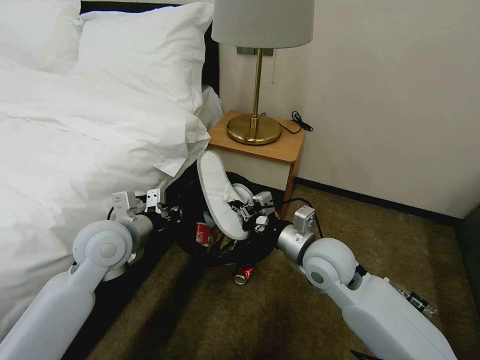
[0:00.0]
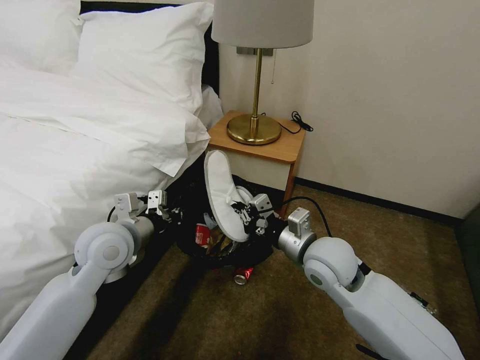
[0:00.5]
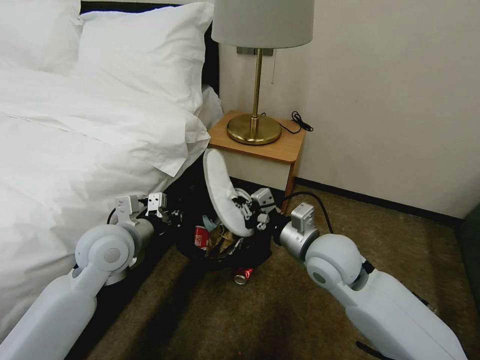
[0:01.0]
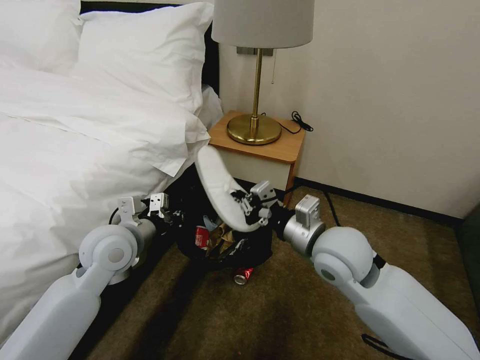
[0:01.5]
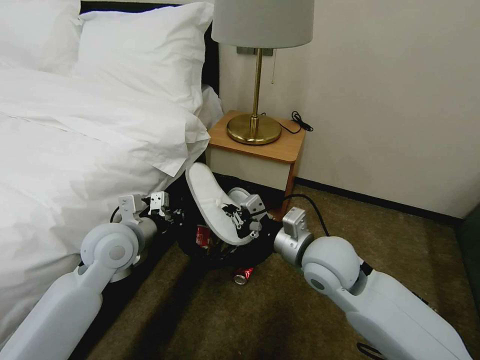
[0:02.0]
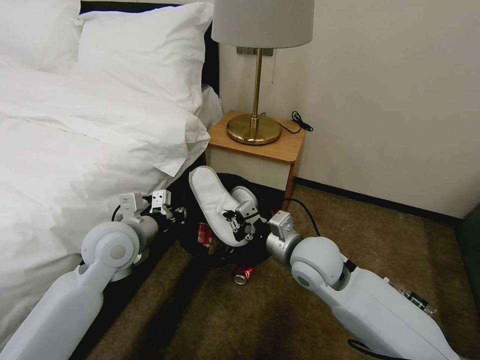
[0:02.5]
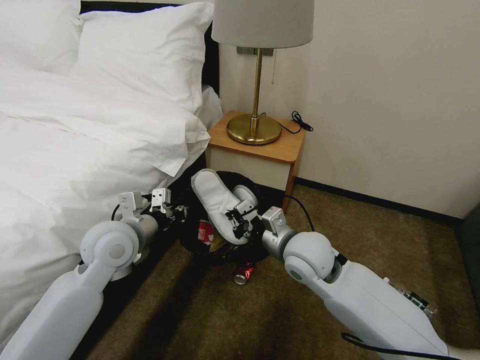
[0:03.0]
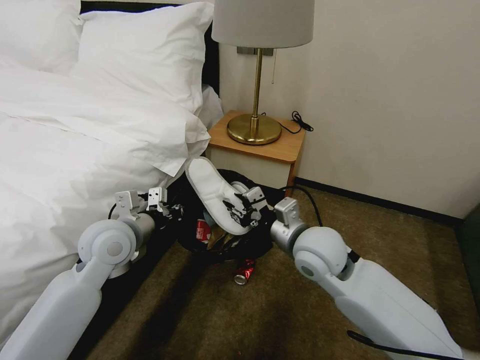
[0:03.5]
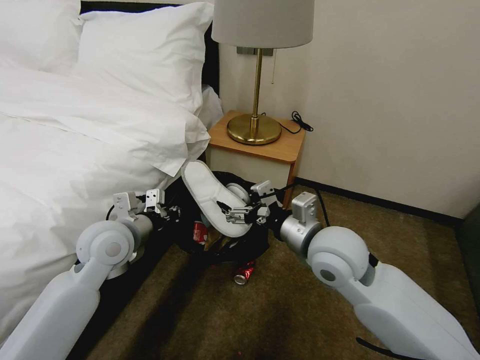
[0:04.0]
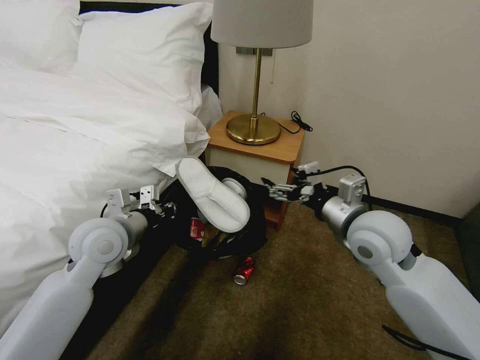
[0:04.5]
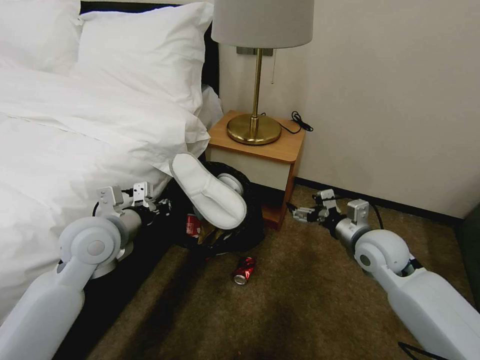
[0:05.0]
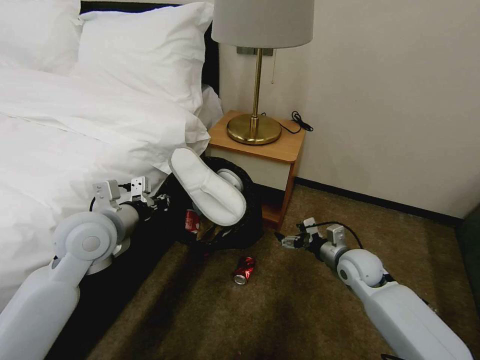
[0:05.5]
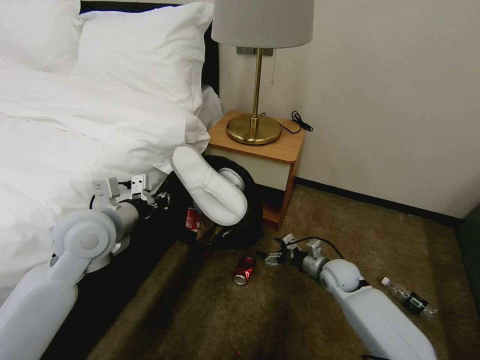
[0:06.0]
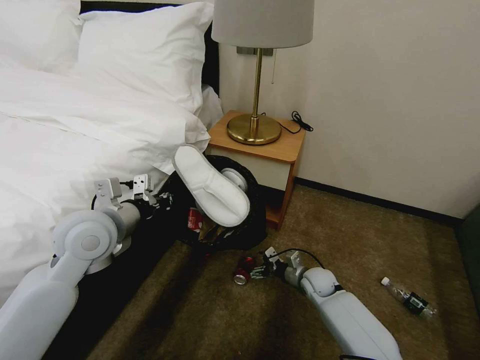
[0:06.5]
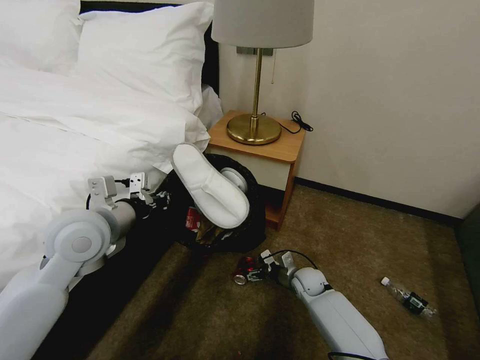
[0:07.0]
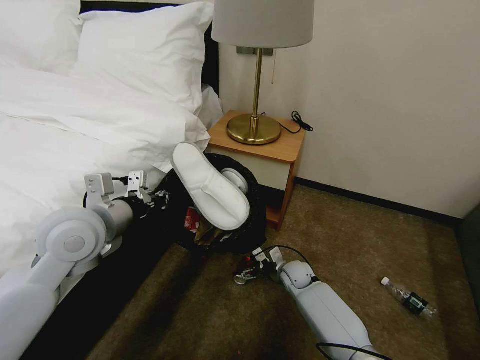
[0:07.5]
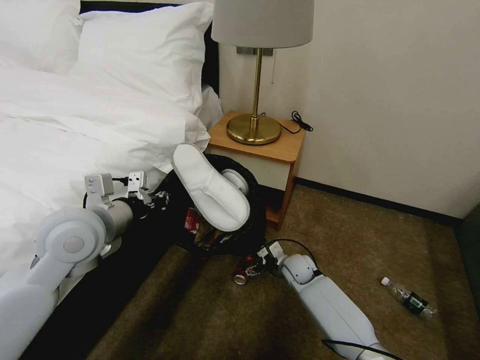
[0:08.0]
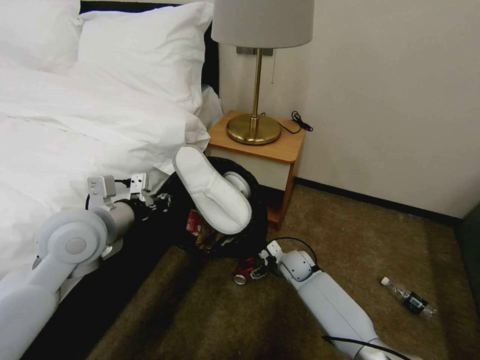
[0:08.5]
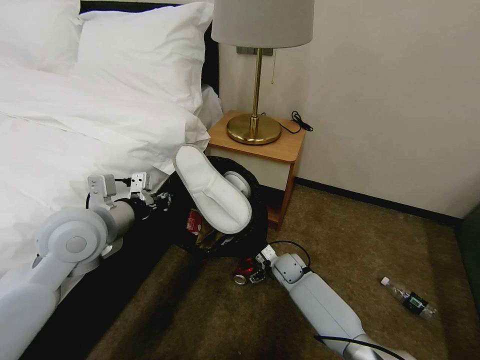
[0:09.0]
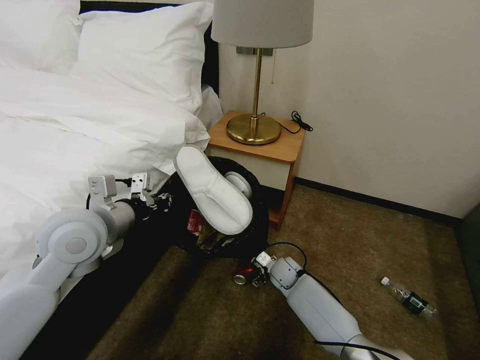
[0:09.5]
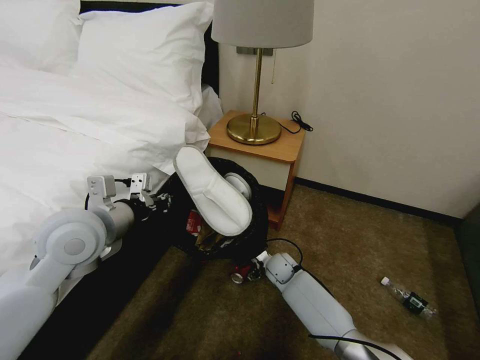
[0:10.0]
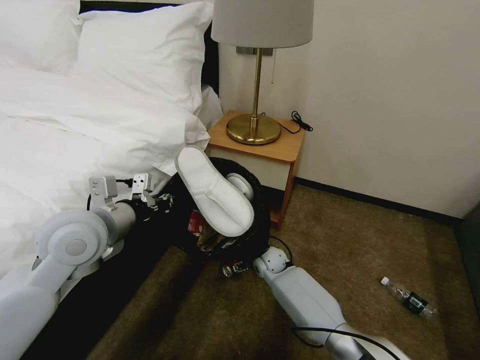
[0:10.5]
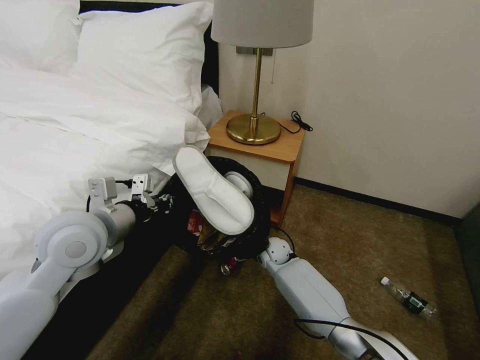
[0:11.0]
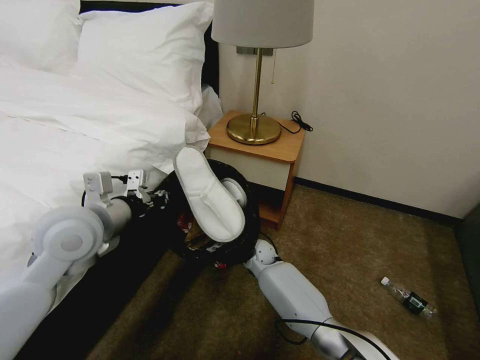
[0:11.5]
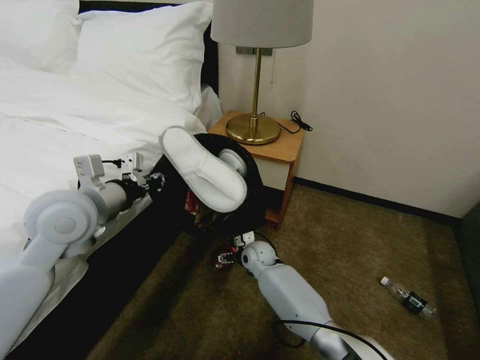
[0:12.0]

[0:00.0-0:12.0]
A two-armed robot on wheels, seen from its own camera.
Task of the whole recording: Pick up the trash bin, then pick up the garbage on the floor and place it into the trash bin.
0:00.0 to 0:02.0: The grippers move only a little.
0:02.0 to 0:04.0: The right gripper opens up.
0:04.0 to 0:06.0: The right gripper moves downward and to the right, some 30 cm.
0:06.0 to 0:08.0: The right gripper moves to the left, approximately 10 cm.
0:08.0 to 0:10.0: The right gripper moves approximately 5 cm.
0:10.0 to 0:12.0: The left gripper closes, while the right gripper shifts roughly 5 cm to the left.

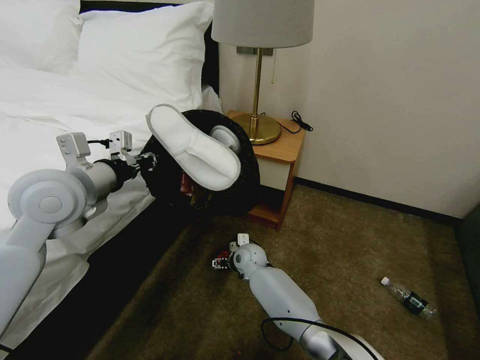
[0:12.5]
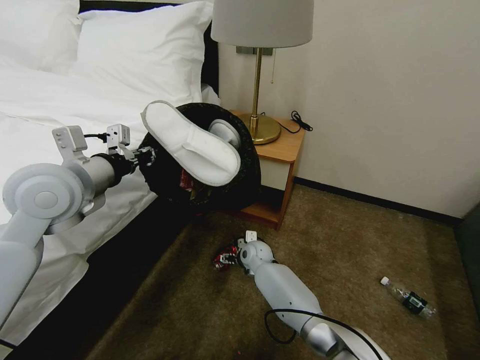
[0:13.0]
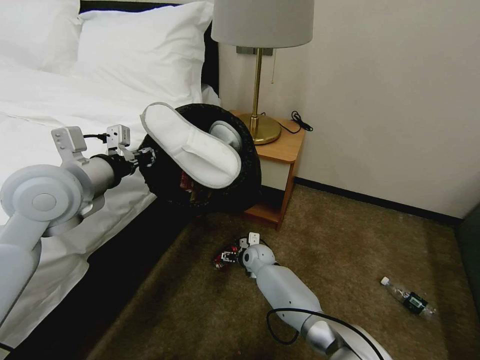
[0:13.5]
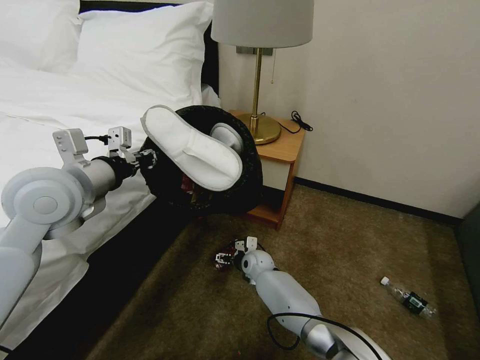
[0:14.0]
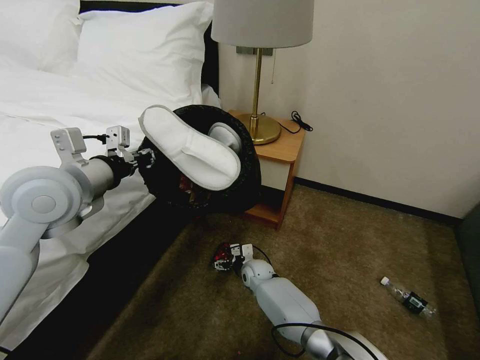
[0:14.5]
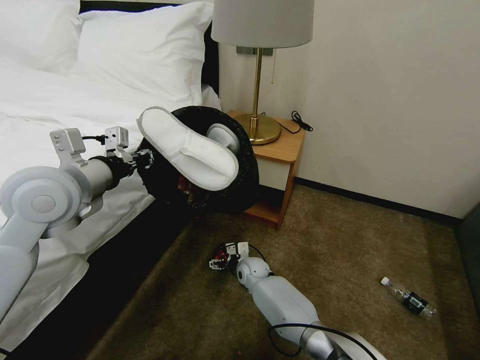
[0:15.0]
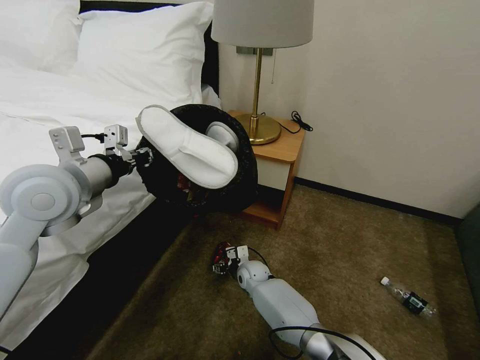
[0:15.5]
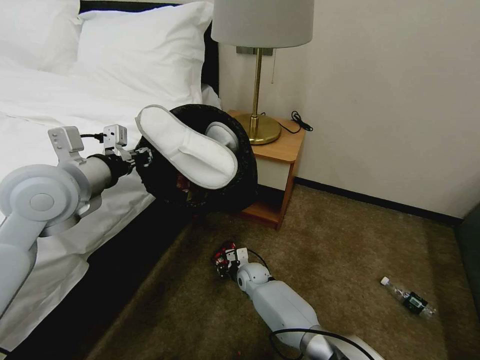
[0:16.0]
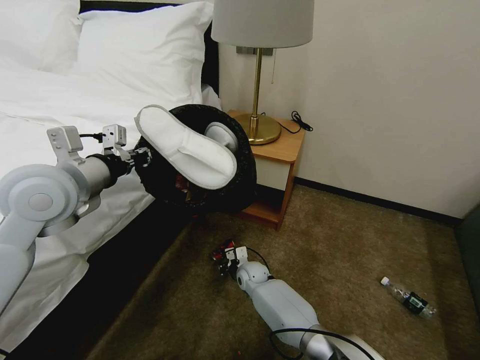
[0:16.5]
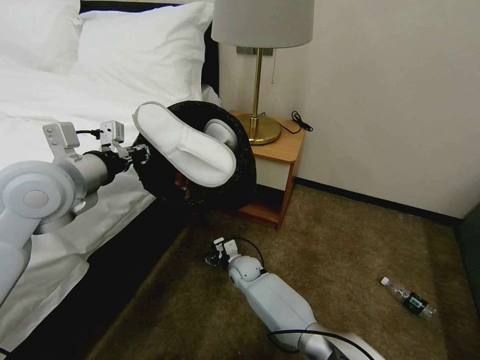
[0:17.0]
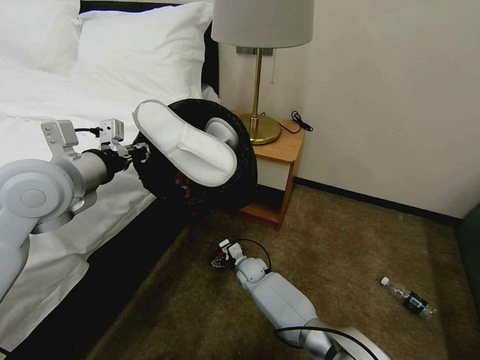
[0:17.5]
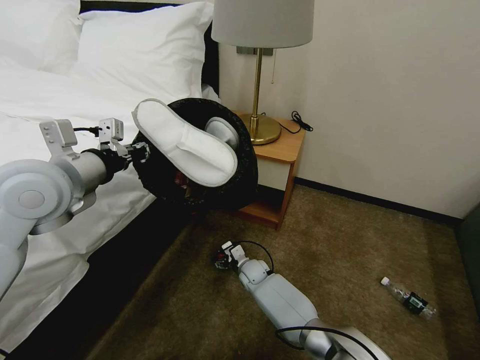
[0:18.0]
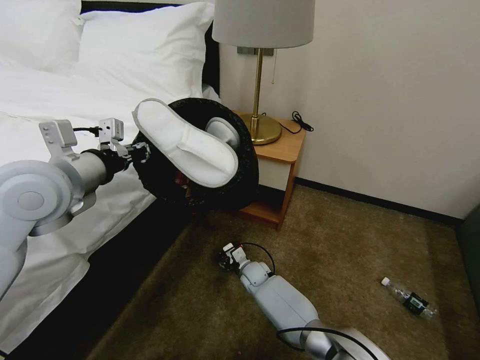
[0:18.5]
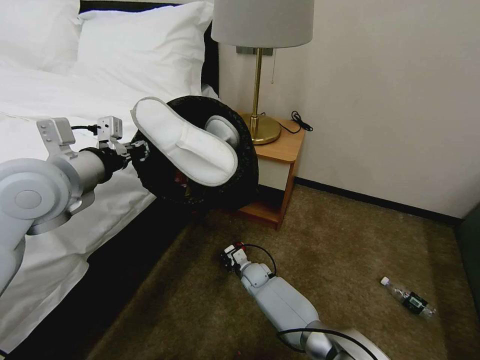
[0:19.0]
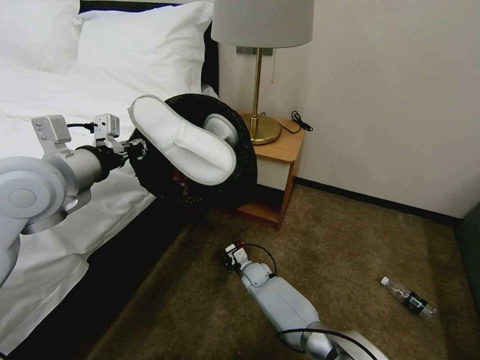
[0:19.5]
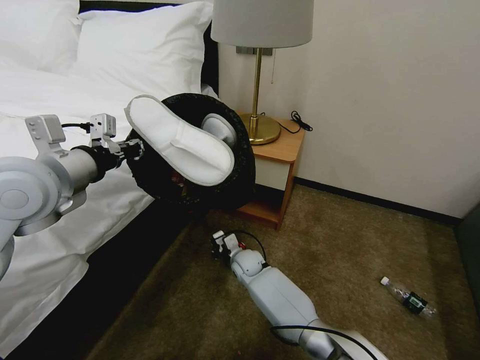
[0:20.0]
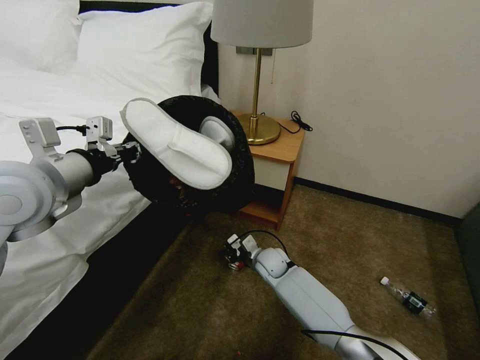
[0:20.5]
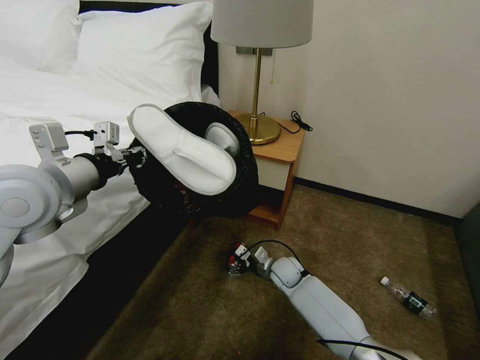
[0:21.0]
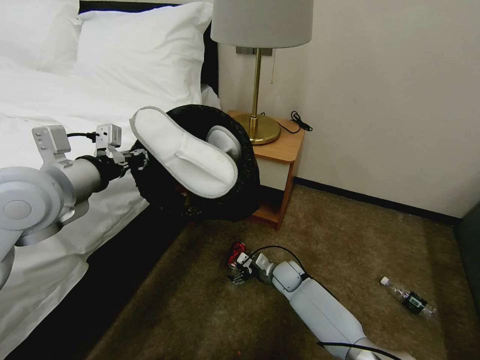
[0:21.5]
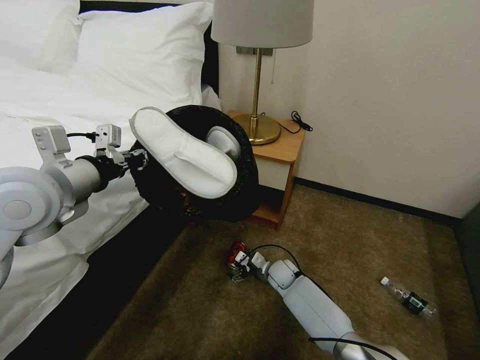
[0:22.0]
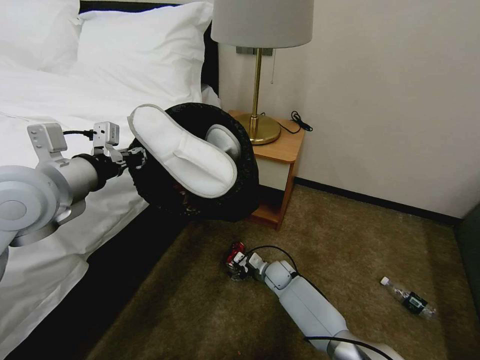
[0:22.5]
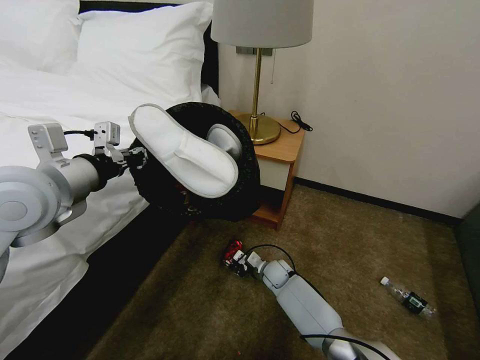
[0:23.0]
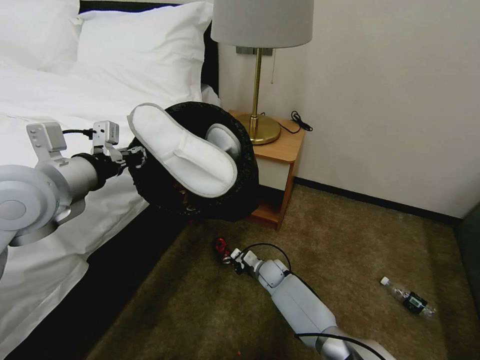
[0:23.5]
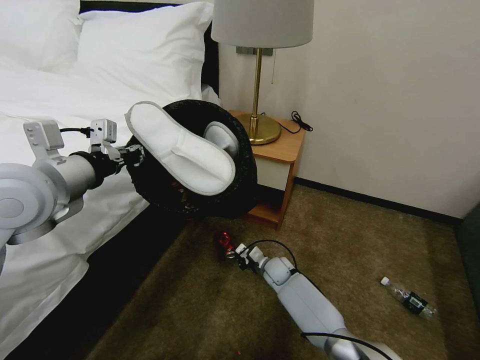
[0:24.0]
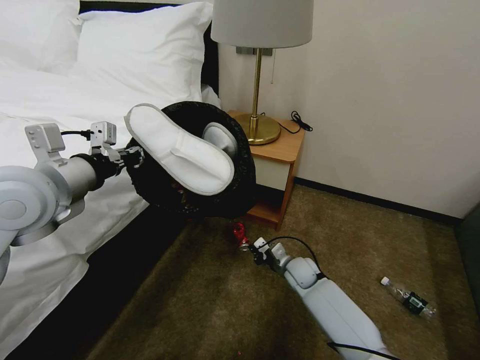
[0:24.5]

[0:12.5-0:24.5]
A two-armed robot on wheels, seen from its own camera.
Task of the whole recording: Pick up the trash bin, then pick up the garbage on the floor and place it into the trash bin.
0:12.5 to 0:14.5: The right gripper heads downward, covering approximately 5 cm.
0:14.5 to 0:16.5: The right gripper closes up.
0:16.5 to 0:18.5: The right gripper opens its fingers.
0:18.5 to 0:20.5: The right gripper travels upward by roughly 10 cm.
0:20.5 to 0:22.5: The right gripper travels downward by approximately 5 cm, and opens up.
0:22.5 to 0:24.5: The right gripper shifts approximately 5 cm to the right and upward, and closes up.

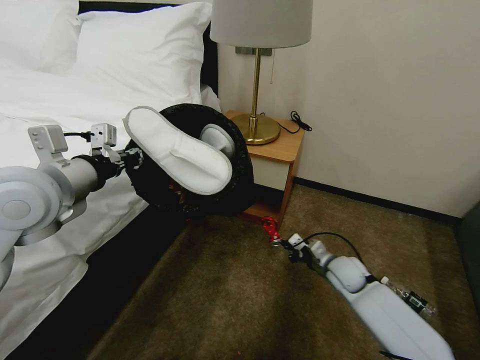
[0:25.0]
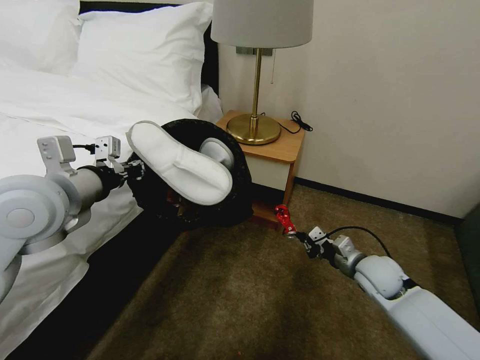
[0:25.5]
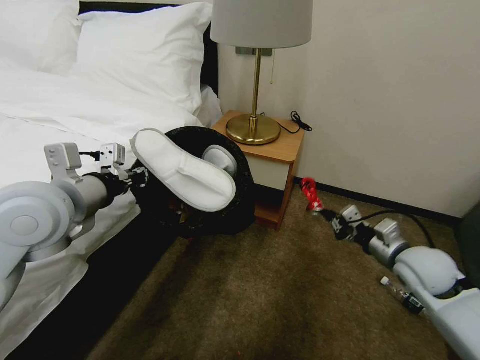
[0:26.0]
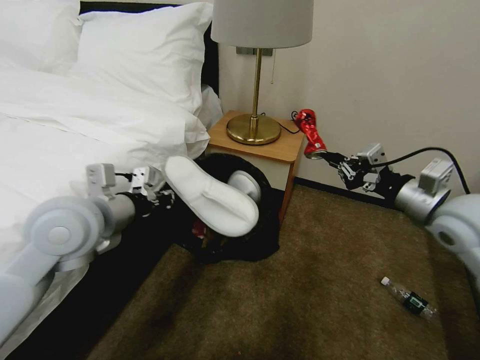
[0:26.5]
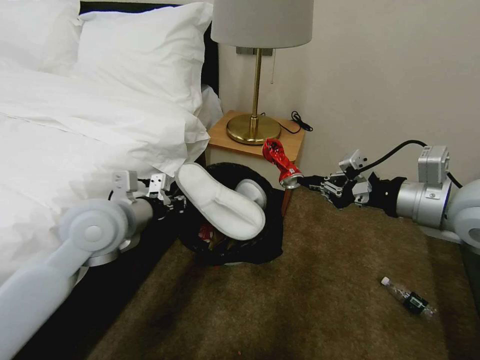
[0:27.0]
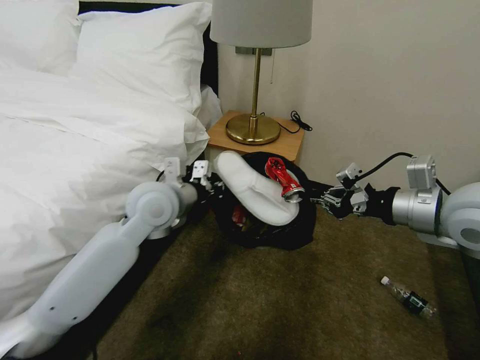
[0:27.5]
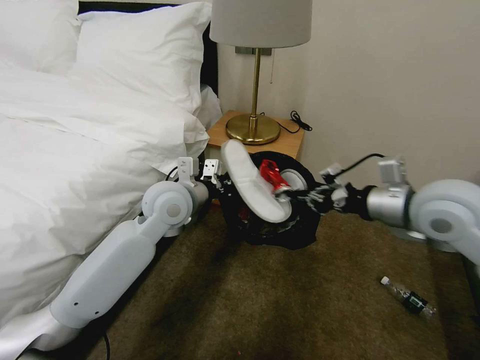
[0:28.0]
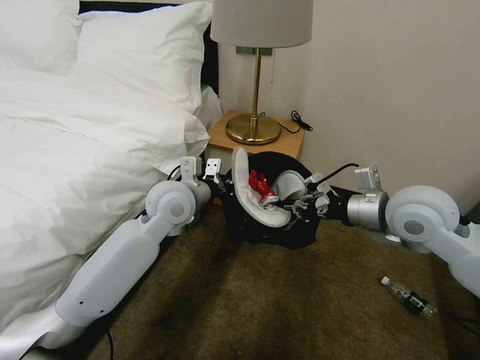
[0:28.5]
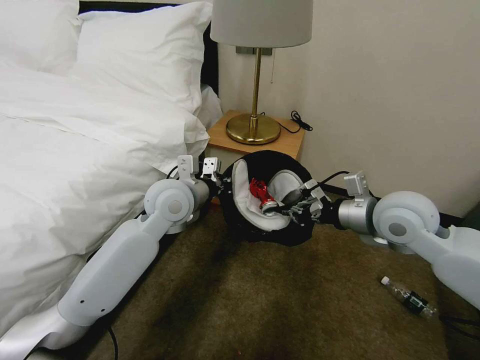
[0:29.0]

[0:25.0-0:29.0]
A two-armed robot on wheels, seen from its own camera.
Task of the whole recording: Pick up the trash bin, then pick up the garbage on the floor and place it into the trash bin.
0:25.0 to 0:27.0: The left gripper goes roughly 10 cm downward and to the right, while the right gripper shifts approximately 35 cm upward.
0:27.0 to 0:29.0: The left gripper travels to the right and forward by approximately 15 cm; the right gripper shifts about 10 cm downward and forward.
